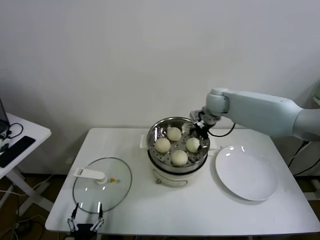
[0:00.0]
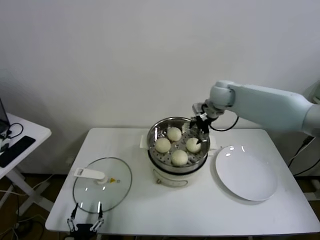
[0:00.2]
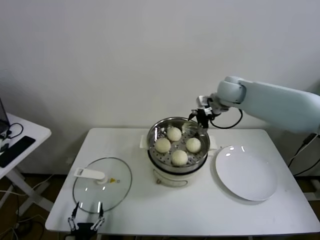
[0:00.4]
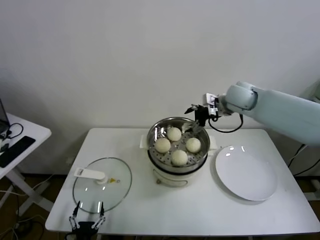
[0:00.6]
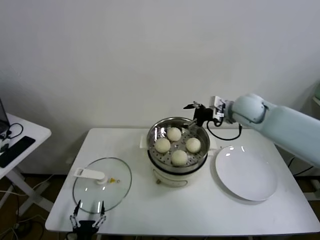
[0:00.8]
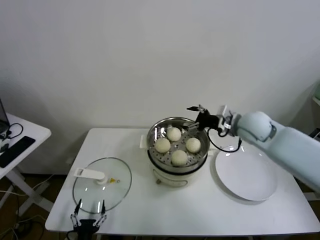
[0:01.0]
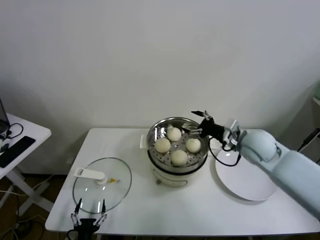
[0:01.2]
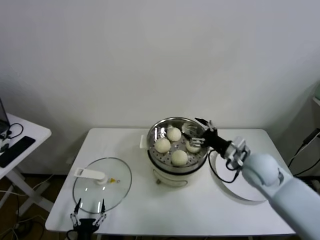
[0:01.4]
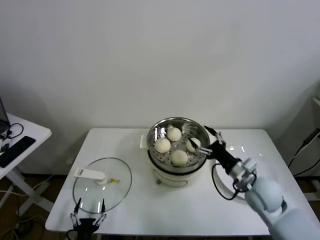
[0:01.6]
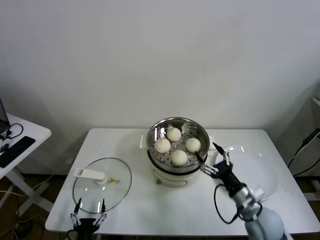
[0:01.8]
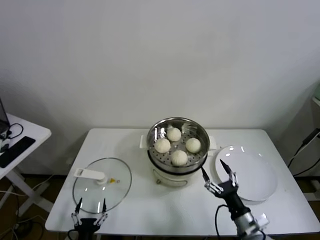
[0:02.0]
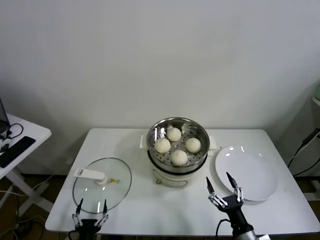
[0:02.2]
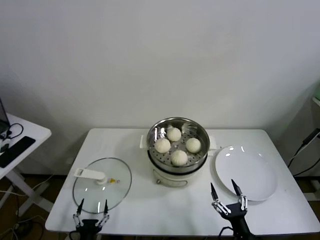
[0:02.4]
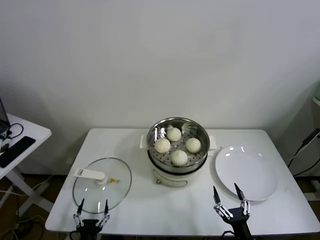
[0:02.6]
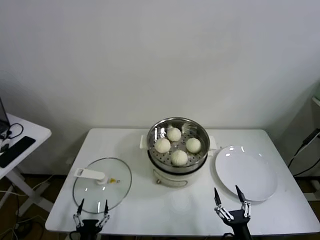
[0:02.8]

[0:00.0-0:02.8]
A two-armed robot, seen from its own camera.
Task of the whole recording: take steamed baozi put them in steamer.
0:00.0 to 0:01.4: The right gripper moves backward, downward and to the right, about 25 cm.
0:01.4 to 0:02.8: The right gripper travels backward and downward by about 35 cm.
